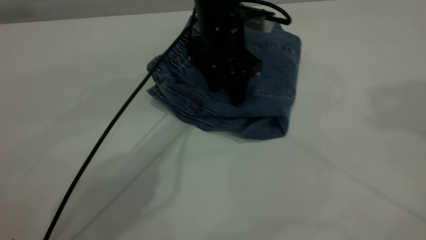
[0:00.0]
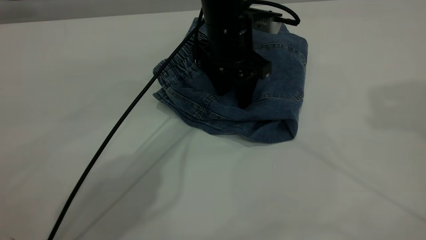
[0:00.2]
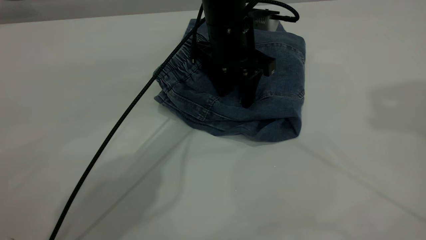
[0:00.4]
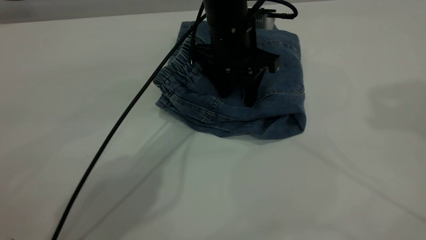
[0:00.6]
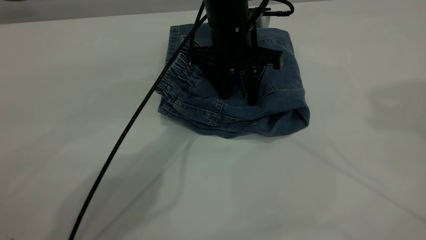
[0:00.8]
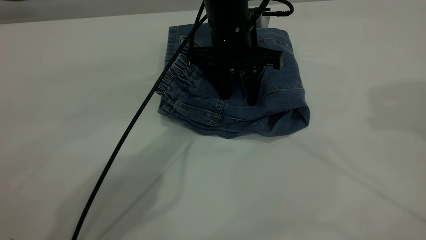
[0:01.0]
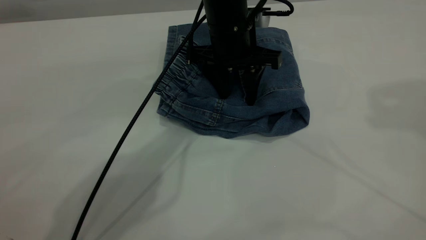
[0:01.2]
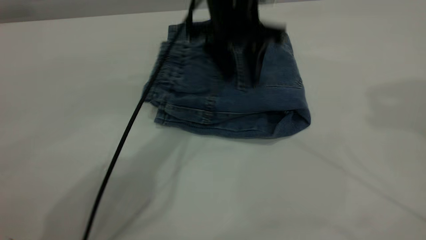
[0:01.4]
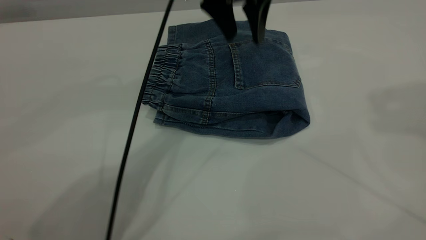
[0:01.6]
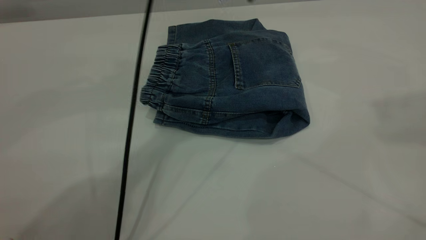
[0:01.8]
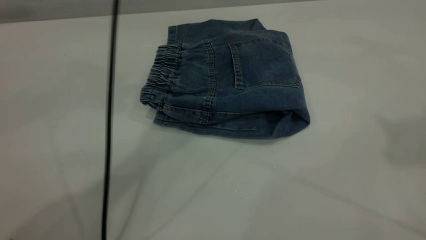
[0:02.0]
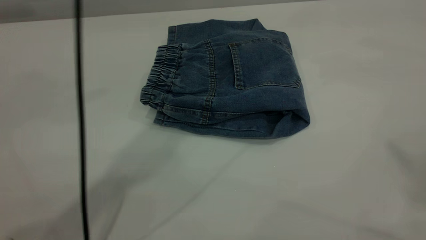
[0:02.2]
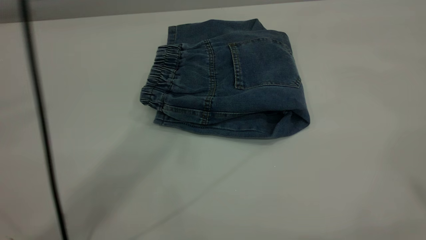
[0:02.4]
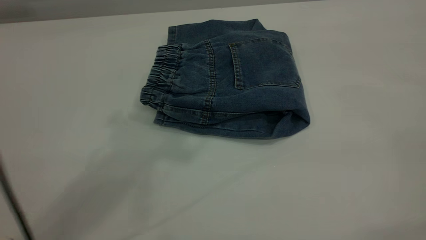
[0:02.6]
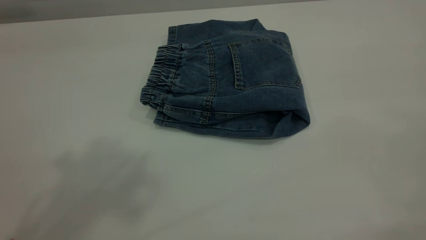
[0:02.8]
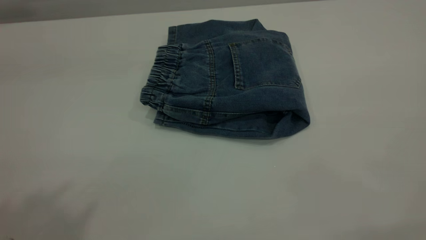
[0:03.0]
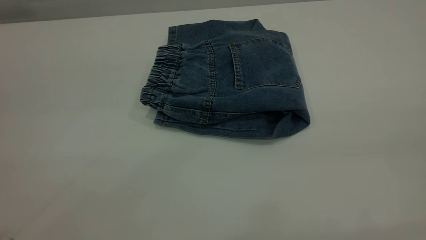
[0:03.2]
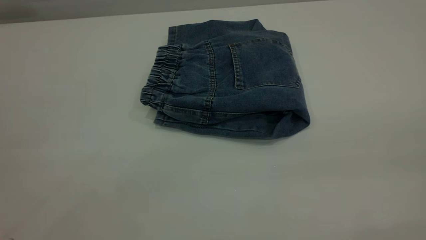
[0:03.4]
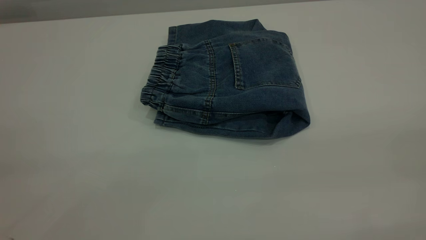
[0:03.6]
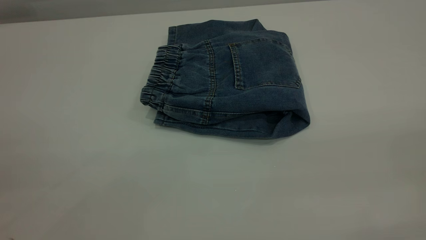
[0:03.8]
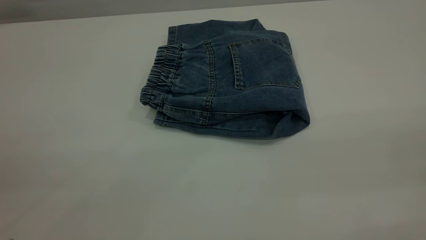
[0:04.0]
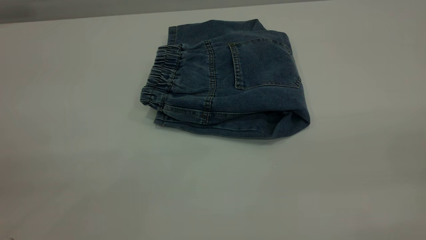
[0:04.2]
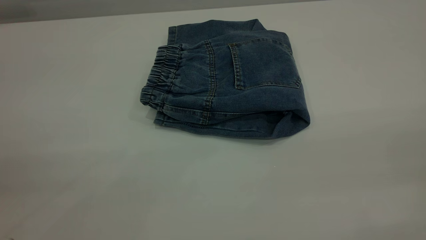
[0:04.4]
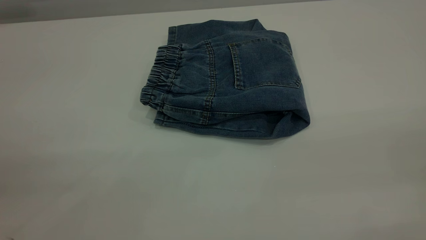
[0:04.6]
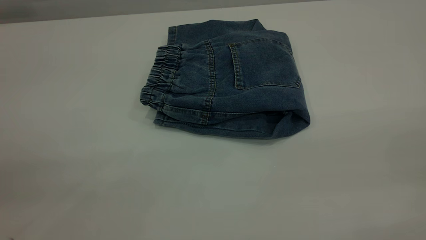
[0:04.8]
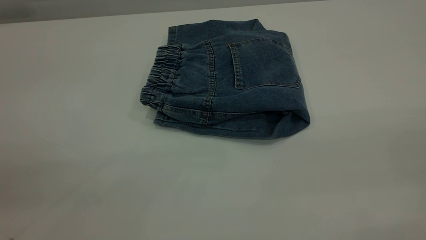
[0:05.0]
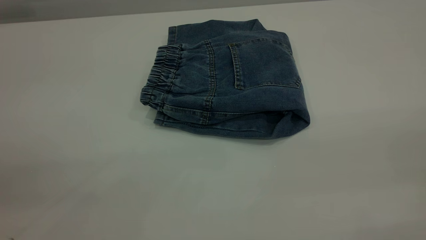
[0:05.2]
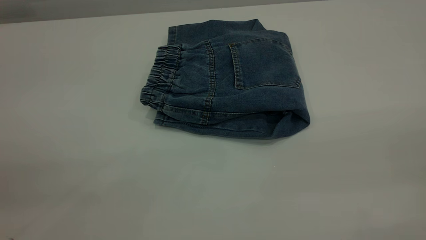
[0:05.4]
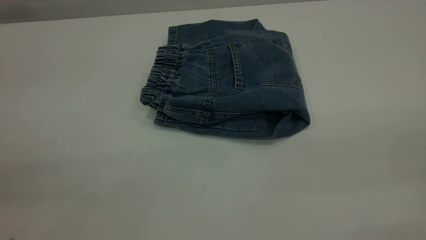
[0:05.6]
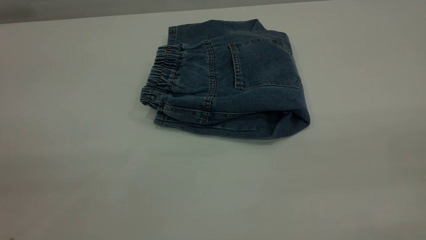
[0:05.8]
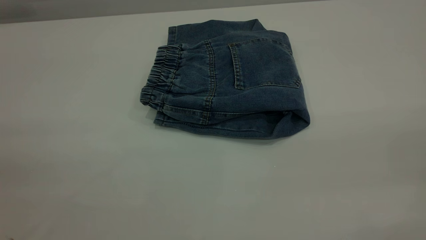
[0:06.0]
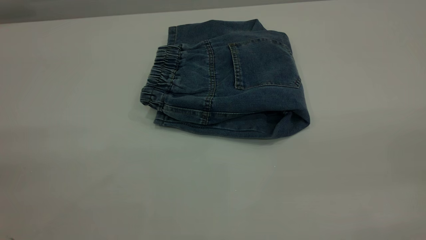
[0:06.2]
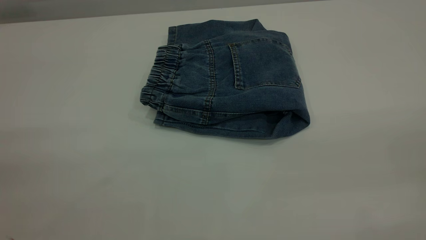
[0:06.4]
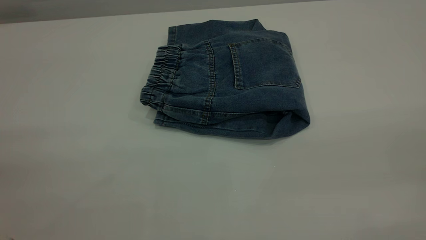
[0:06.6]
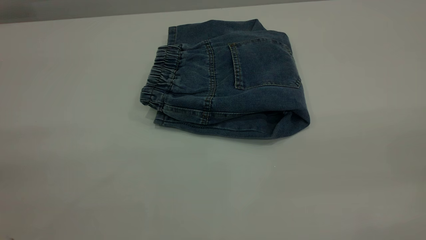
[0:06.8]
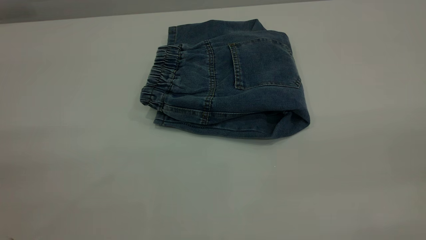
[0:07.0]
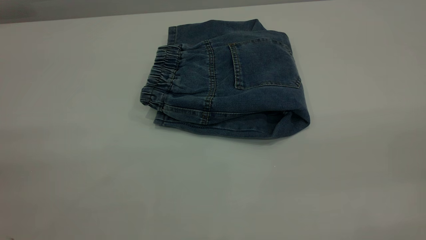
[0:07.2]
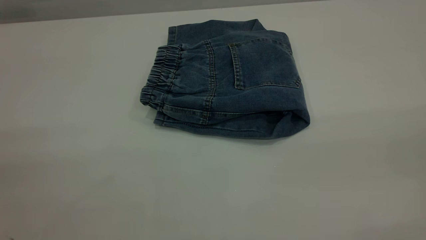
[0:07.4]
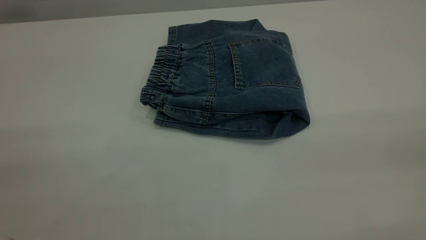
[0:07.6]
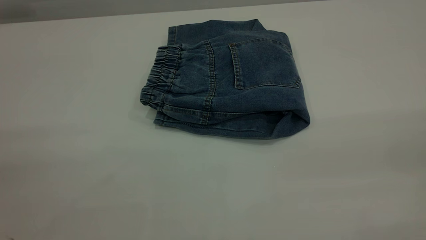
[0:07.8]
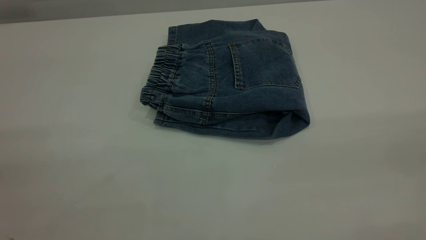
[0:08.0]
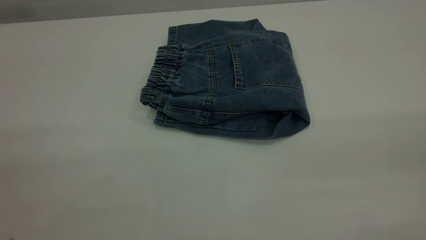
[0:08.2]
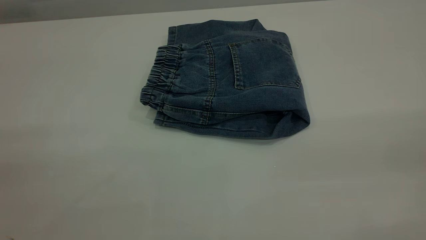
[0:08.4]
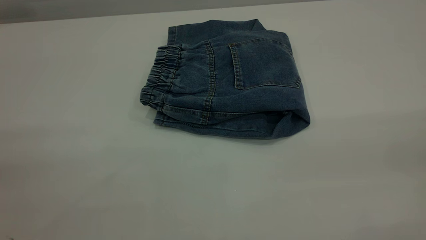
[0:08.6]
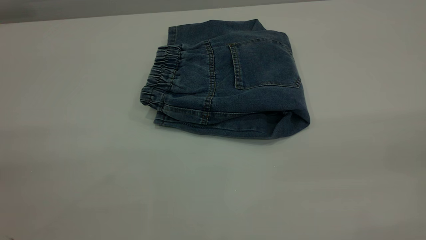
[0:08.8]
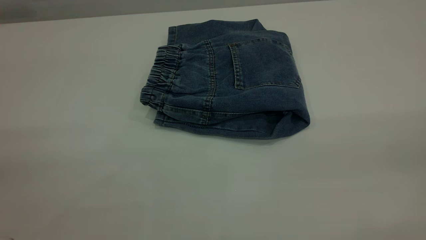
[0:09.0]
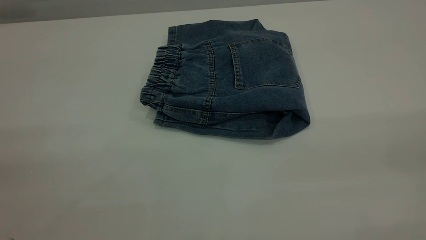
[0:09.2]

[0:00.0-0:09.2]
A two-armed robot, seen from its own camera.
0:00.0 to 0:01.6: The left gripper goes roughly 15 cm upward.
0:01.6 to 0:03.0: The right gripper shifts about 30 cm backward, while the left gripper goes approximately 50 cm backward, upward and to the left.

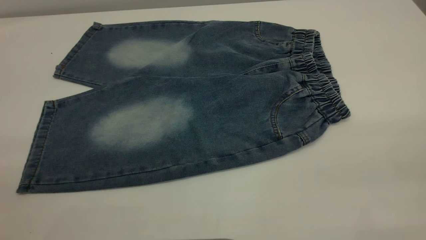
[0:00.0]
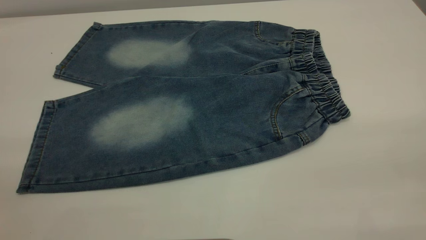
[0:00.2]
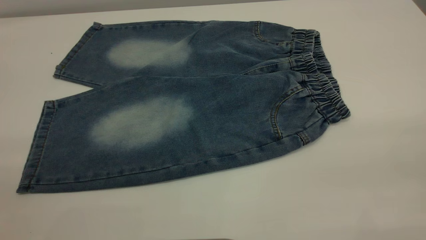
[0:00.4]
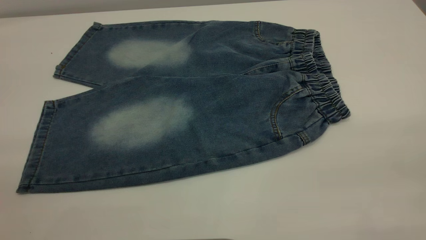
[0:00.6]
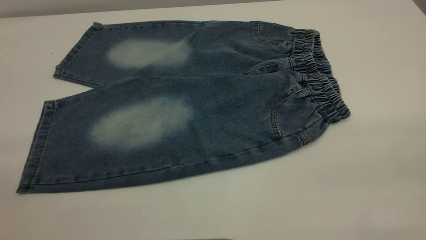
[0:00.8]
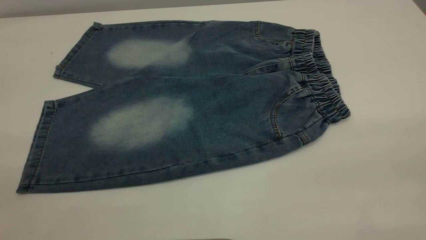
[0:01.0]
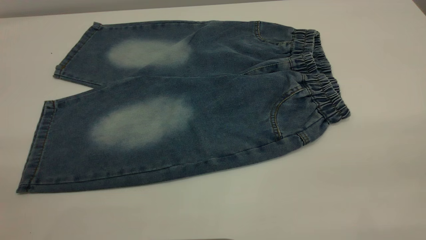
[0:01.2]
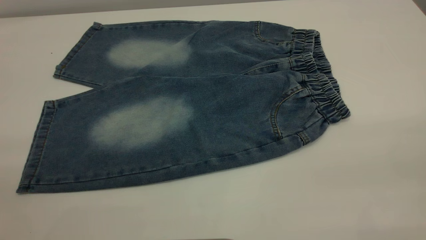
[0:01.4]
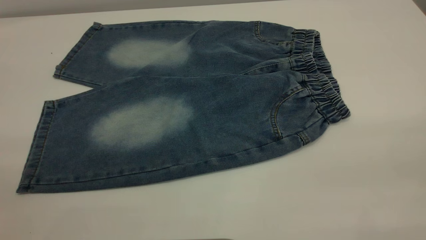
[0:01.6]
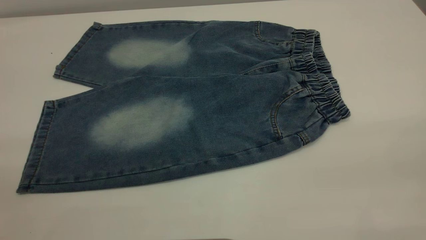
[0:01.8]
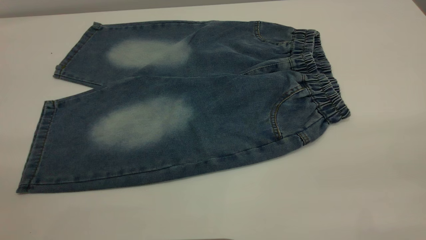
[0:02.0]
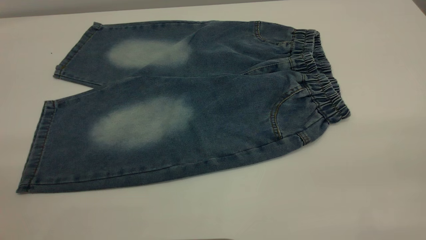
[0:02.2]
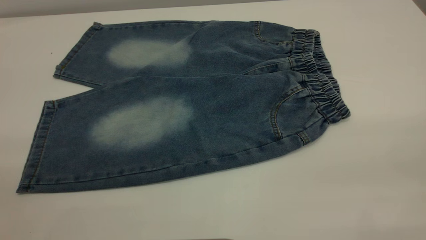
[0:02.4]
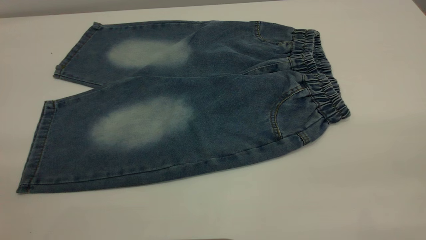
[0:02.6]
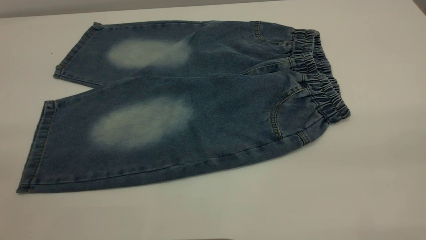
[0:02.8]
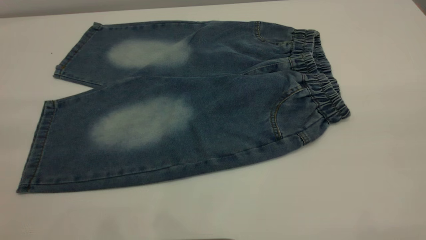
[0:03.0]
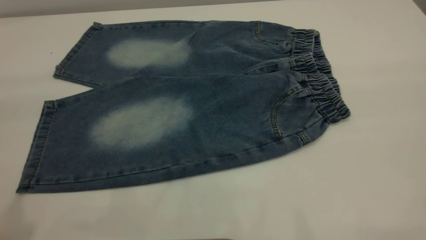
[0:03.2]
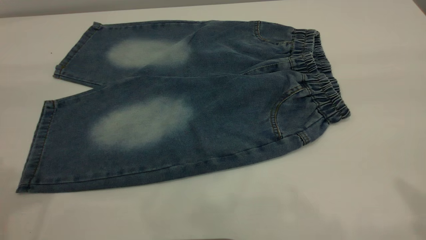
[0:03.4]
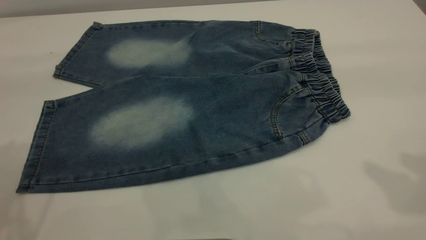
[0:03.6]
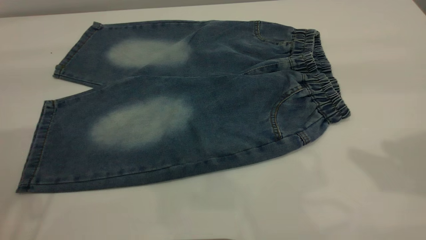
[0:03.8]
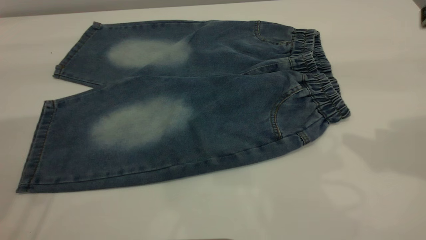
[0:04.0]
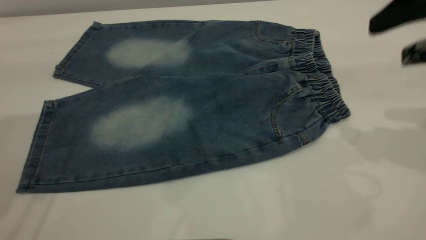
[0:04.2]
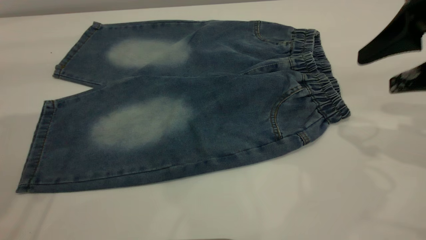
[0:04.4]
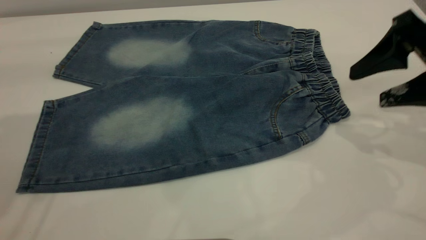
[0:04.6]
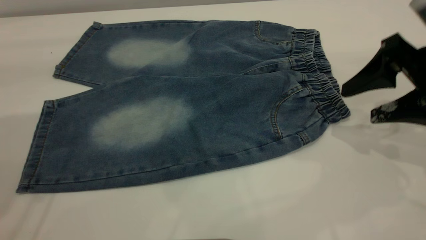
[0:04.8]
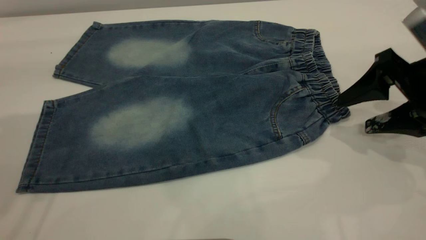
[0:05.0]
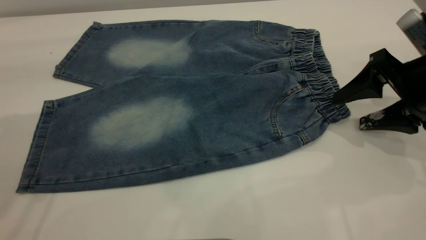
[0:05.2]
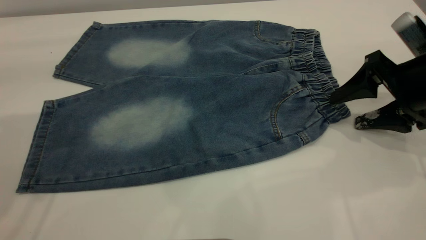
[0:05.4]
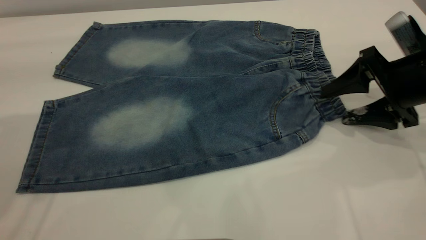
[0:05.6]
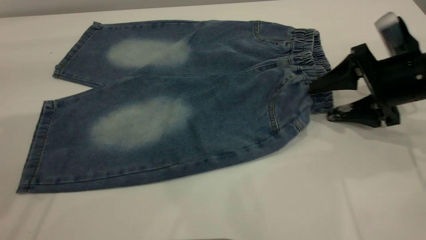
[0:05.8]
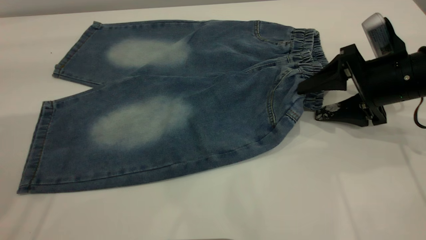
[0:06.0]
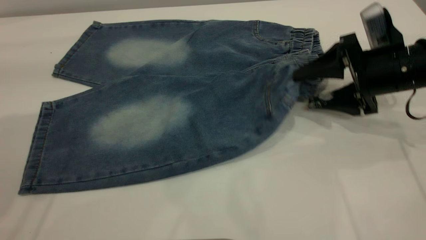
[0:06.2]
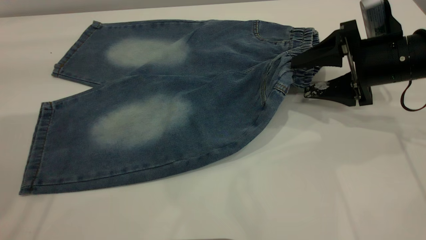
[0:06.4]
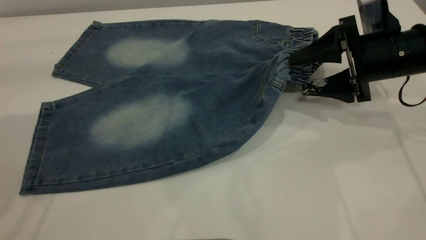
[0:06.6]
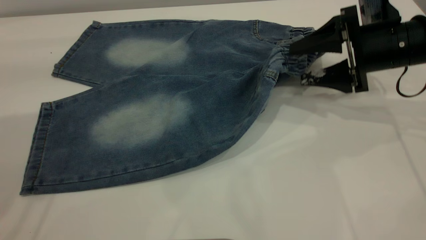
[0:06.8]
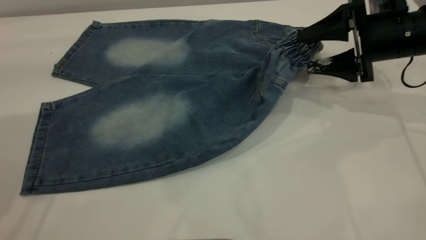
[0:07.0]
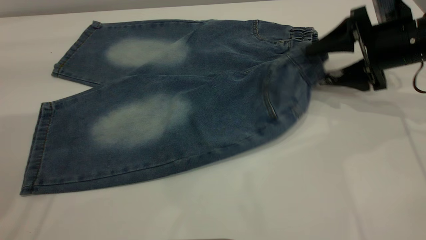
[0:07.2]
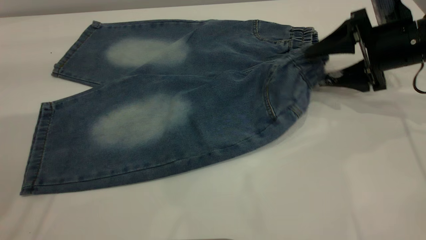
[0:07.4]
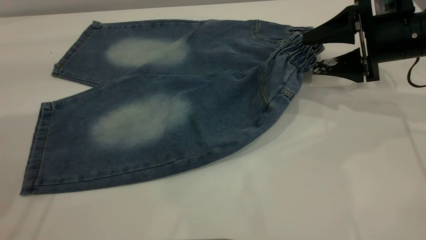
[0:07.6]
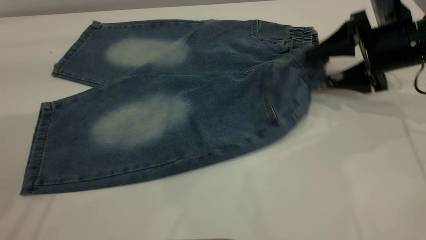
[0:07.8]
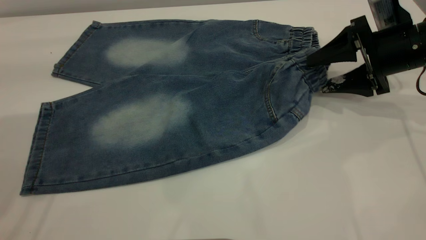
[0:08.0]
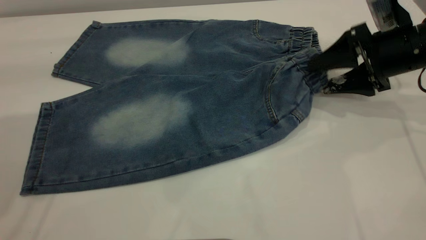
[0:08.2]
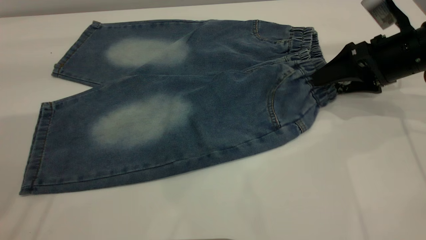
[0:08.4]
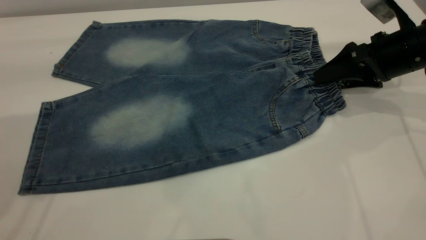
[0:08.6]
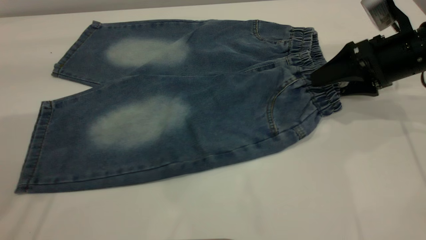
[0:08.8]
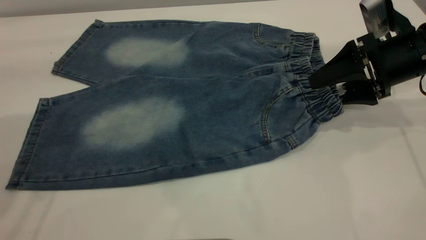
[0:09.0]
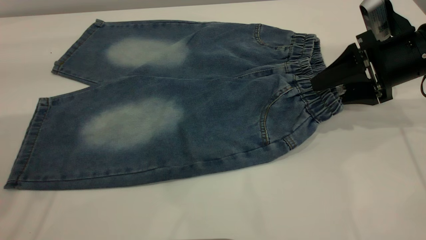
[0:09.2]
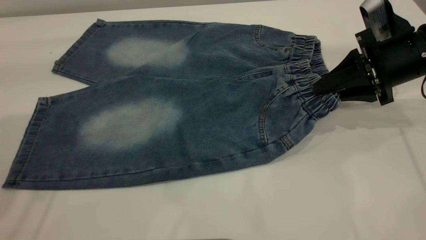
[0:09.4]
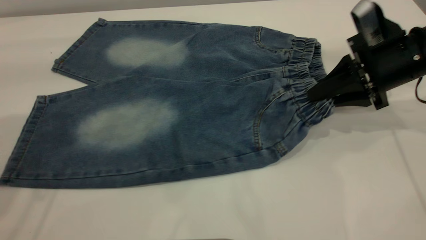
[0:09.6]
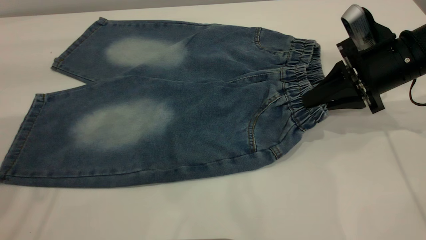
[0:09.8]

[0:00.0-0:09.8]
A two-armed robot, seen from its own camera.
0:00.0 to 0:01.4: Both grippers stay put.
0:02.8 to 0:04.2: The right gripper goes roughly 30 cm forward and downward.
0:04.2 to 0:05.6: The right gripper is displaced downward by approximately 15 cm.
0:05.6 to 0:07.0: The right gripper moves forward, about 5 cm.
0:08.4 to 0:09.8: The right gripper closes its fingers.
